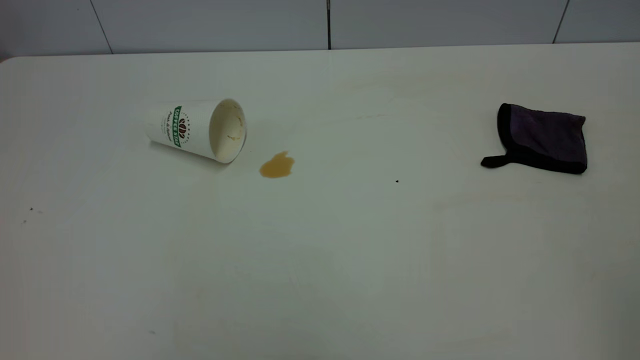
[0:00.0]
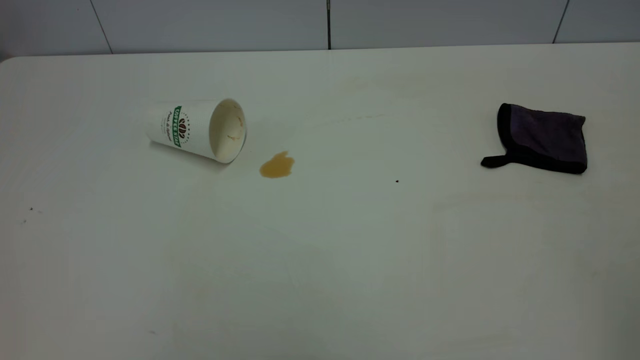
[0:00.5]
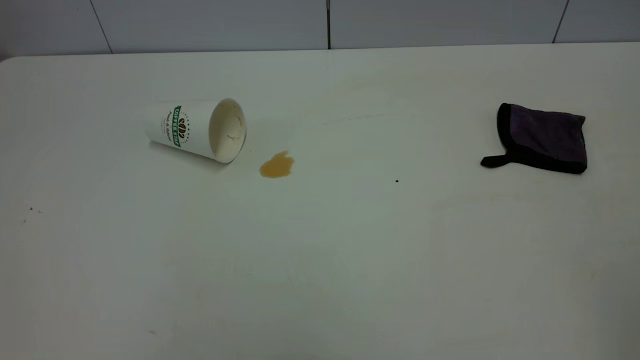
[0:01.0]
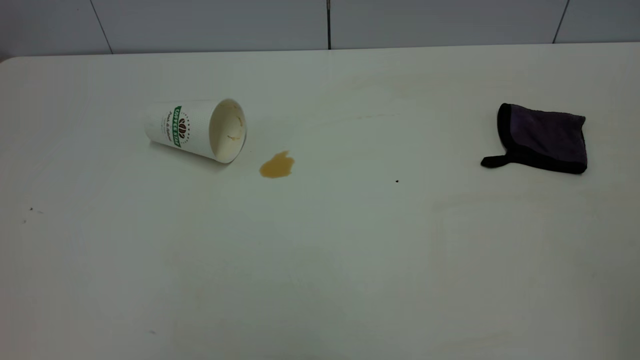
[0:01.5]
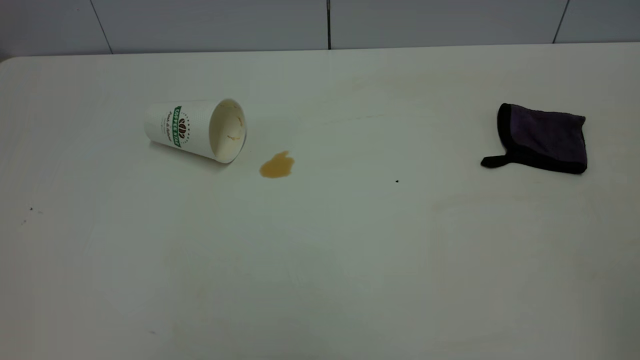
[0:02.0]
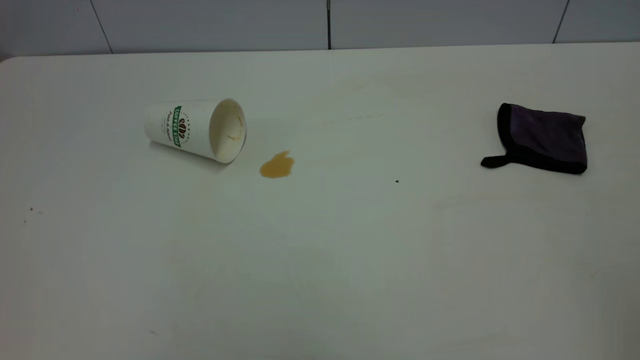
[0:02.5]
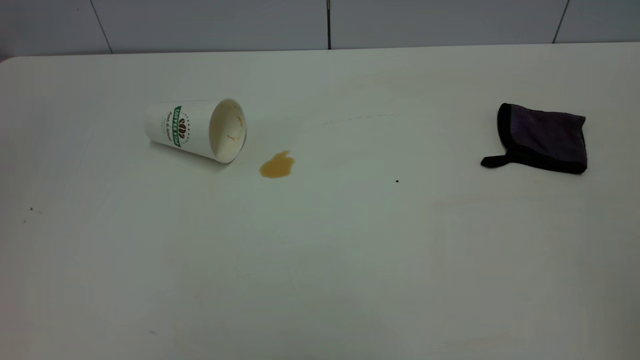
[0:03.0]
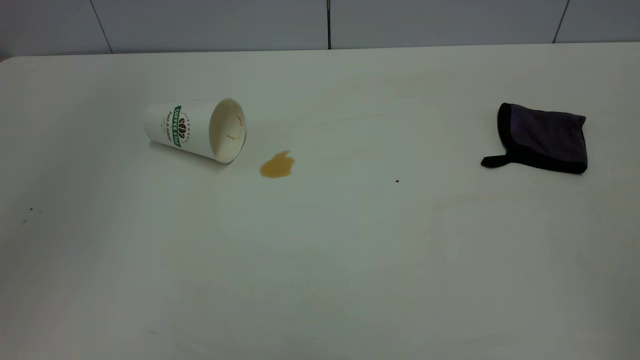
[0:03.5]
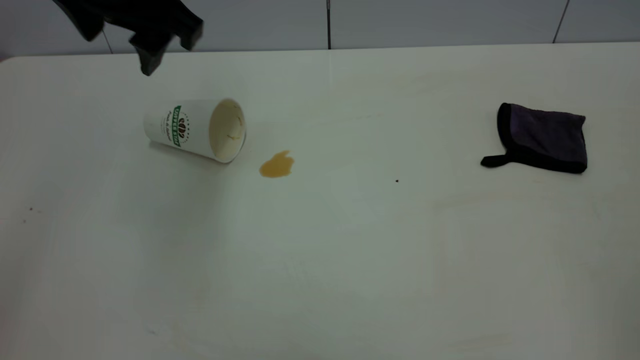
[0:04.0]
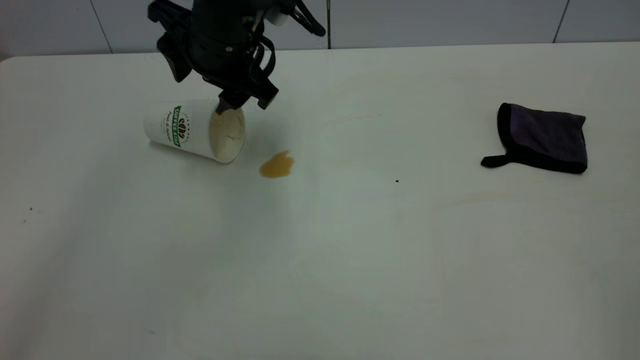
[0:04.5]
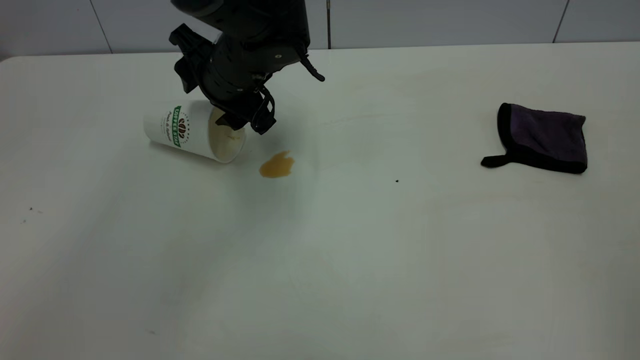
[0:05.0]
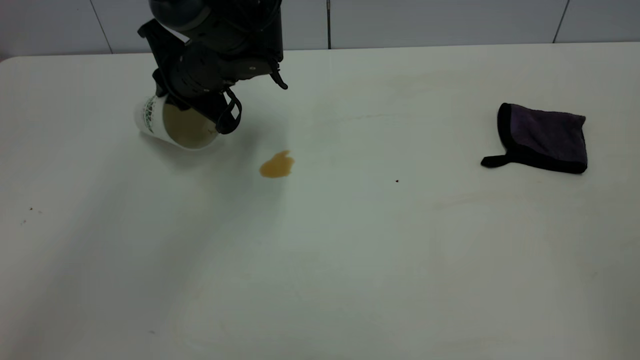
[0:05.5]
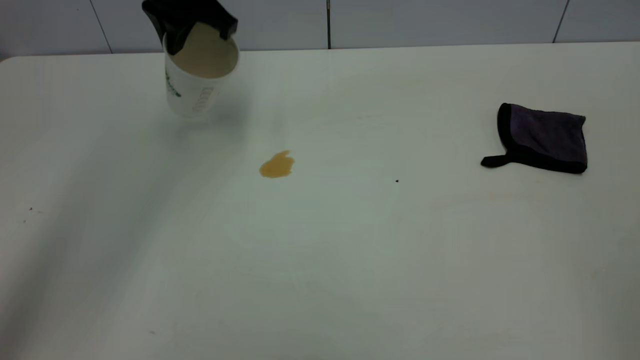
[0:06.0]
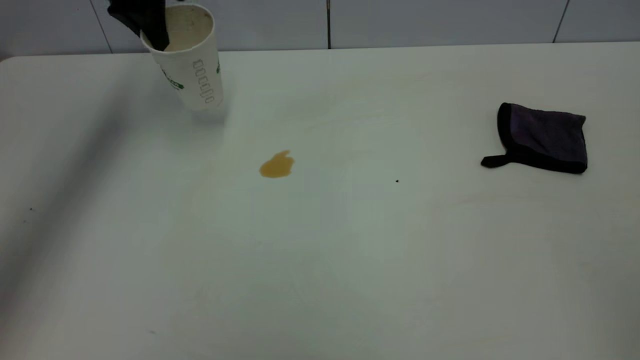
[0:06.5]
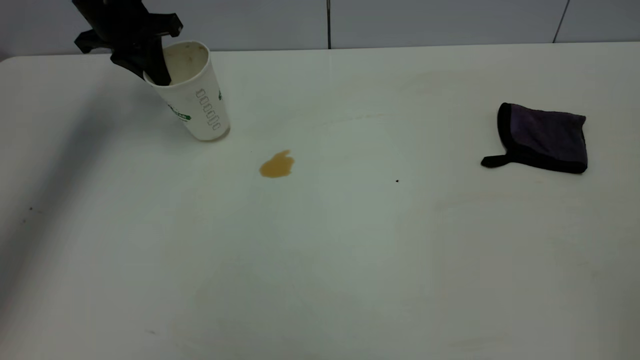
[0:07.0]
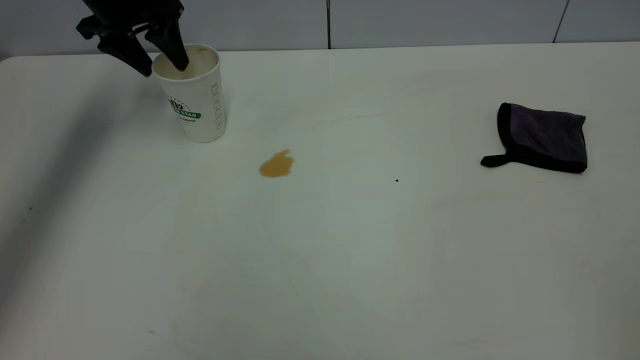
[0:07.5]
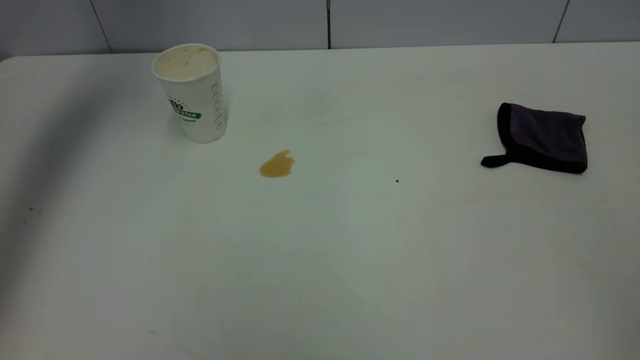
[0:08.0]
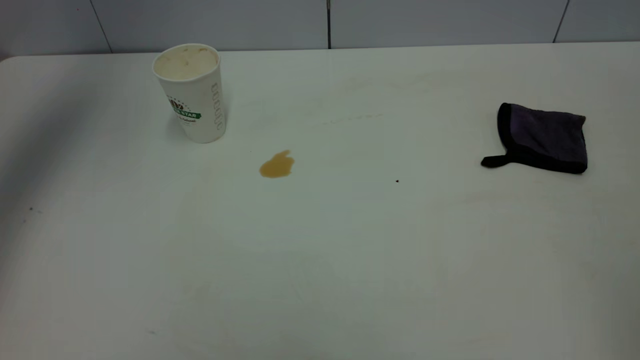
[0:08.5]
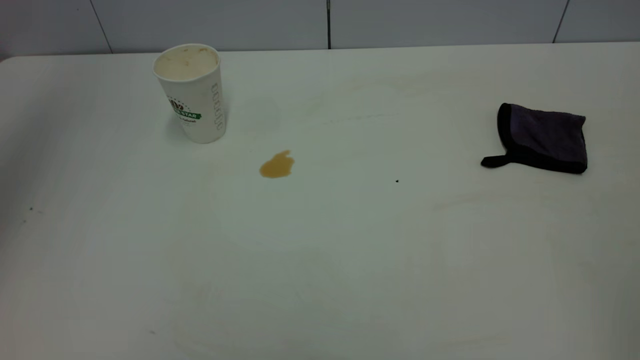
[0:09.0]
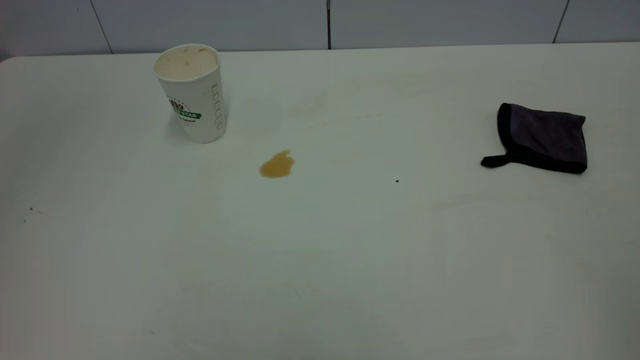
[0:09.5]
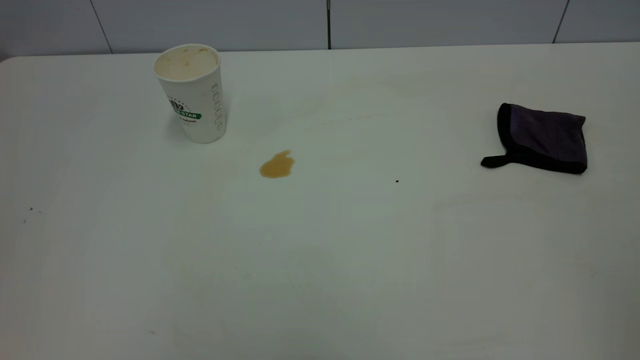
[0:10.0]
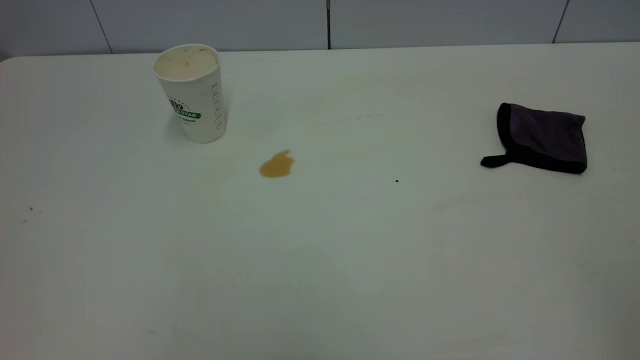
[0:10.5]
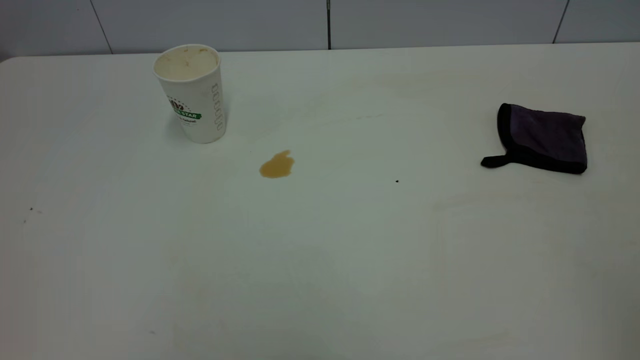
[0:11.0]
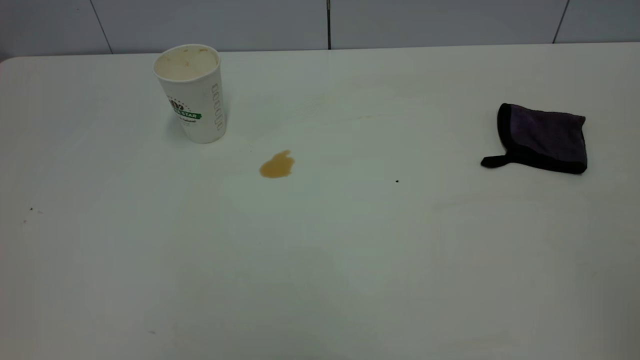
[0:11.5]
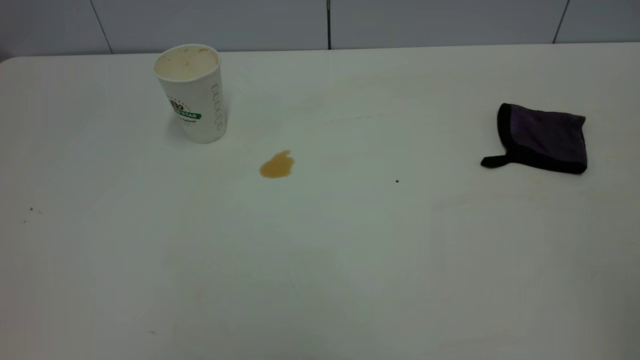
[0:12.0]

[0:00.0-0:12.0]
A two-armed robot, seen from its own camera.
Task of the whole recording: the left gripper pick up the fallen cup and place it upright, the right gripper grasp the purple rag and wipe the tea stain on the table, the right gripper put the purple rag back in its original position.
Step, 0:00.0 to 0:07.5: Stand the paper cup upright.
0:00.0 to 0:02.0: Both grippers stay about where they are.
0:02.0 to 0:04.0: The left gripper goes roughly 40 cm forward and to the right.
0:04.0 to 0:06.0: The left gripper travels forward by roughly 15 cm, reaches about 15 cm downward, then returns, and closes.
0:06.0 to 0:08.0: The left gripper travels upward and to the left by some 20 cm, and opens its fingers.
0:08.0 to 0:10.0: The left gripper shifts roughly 50 cm backward.

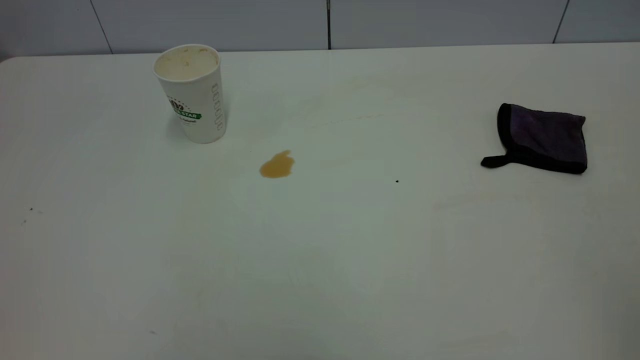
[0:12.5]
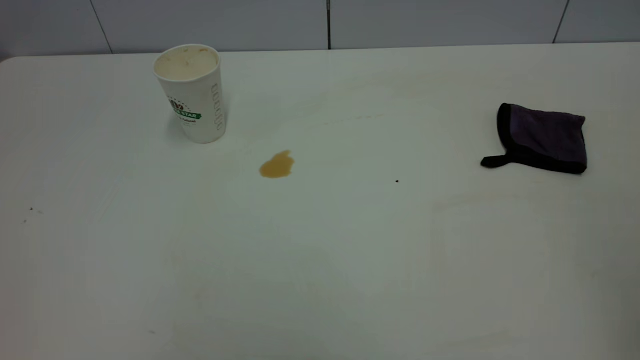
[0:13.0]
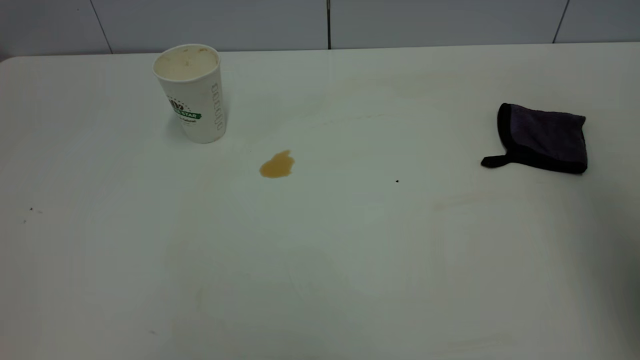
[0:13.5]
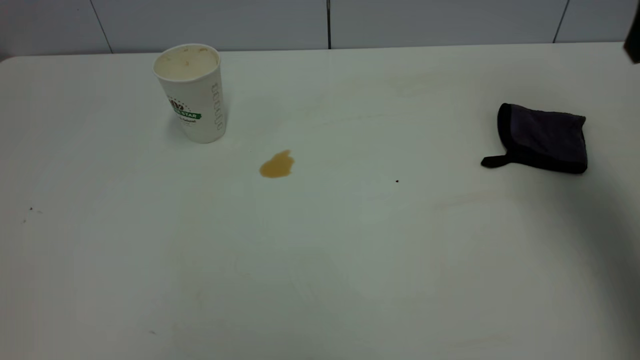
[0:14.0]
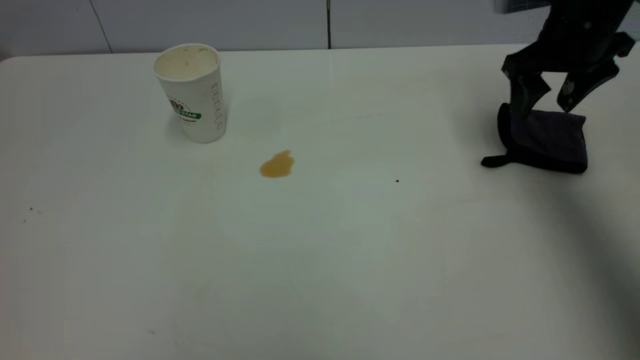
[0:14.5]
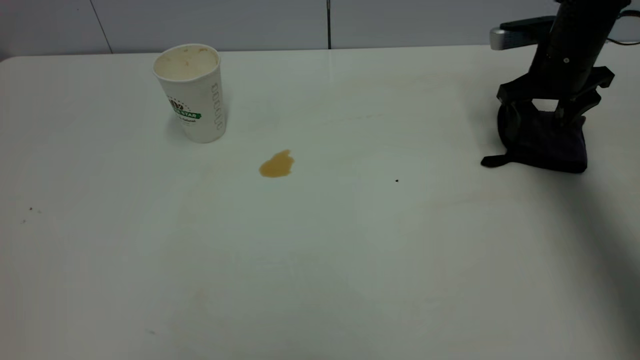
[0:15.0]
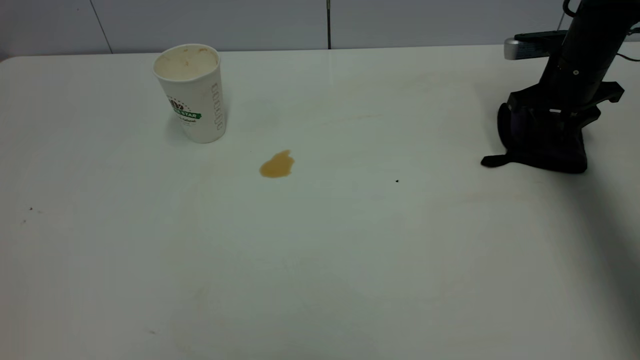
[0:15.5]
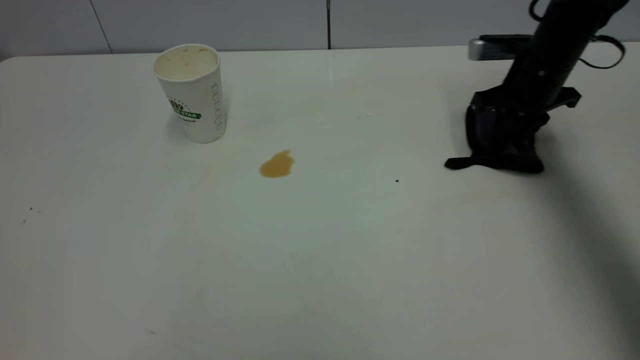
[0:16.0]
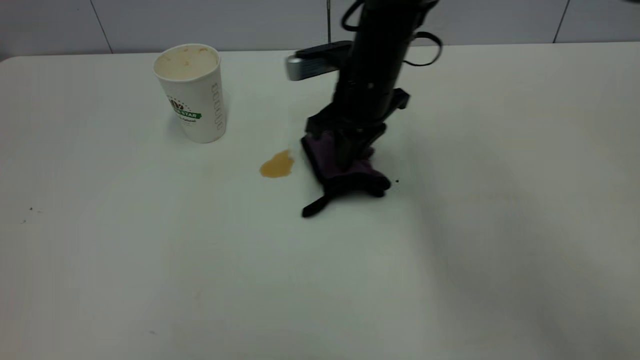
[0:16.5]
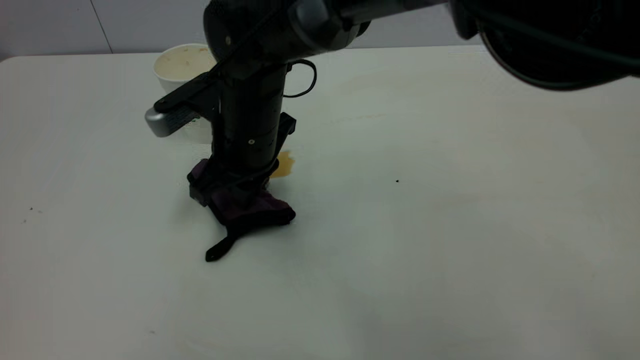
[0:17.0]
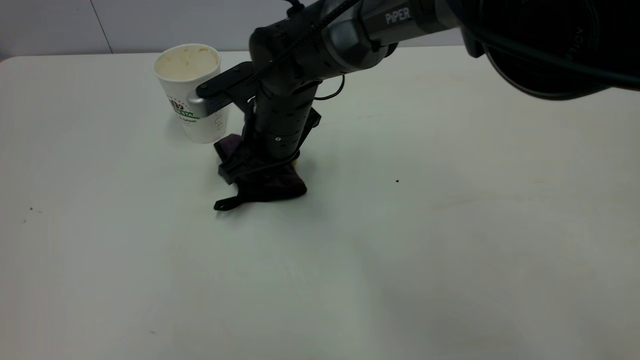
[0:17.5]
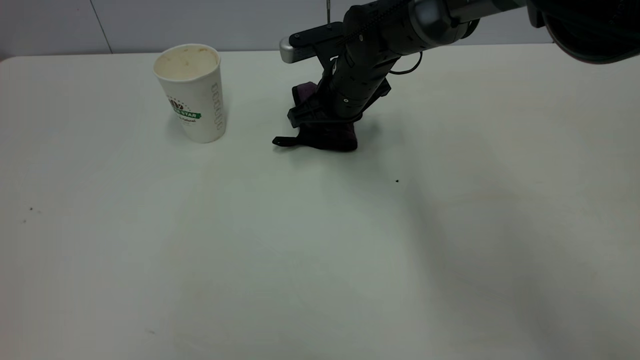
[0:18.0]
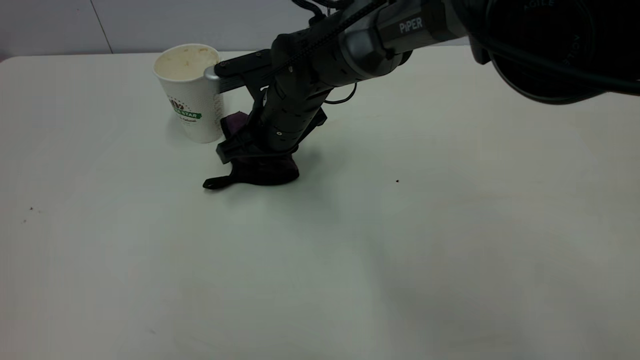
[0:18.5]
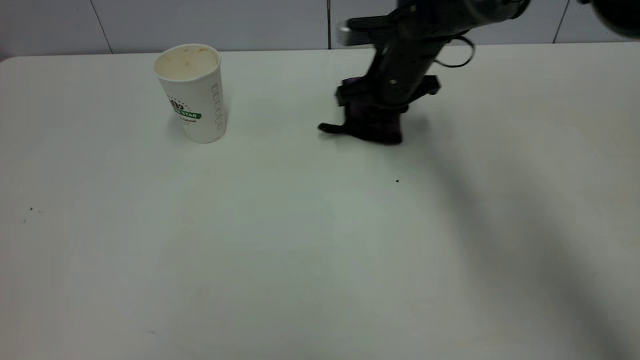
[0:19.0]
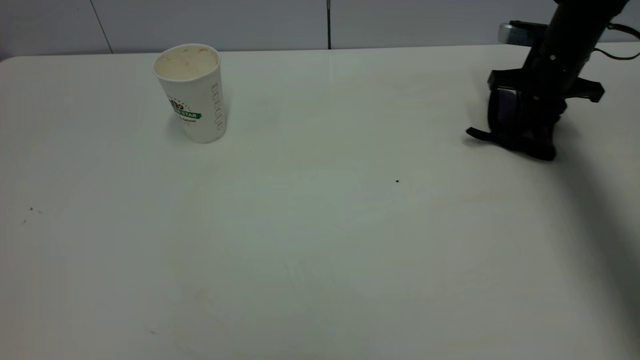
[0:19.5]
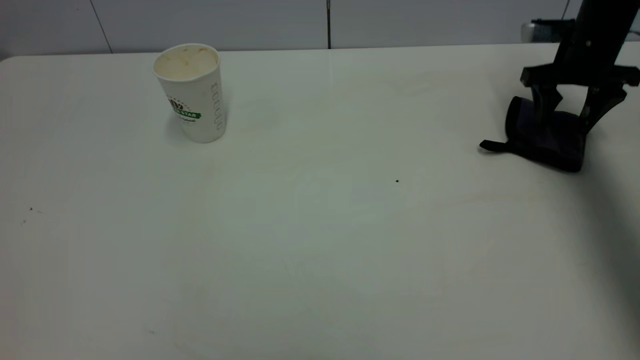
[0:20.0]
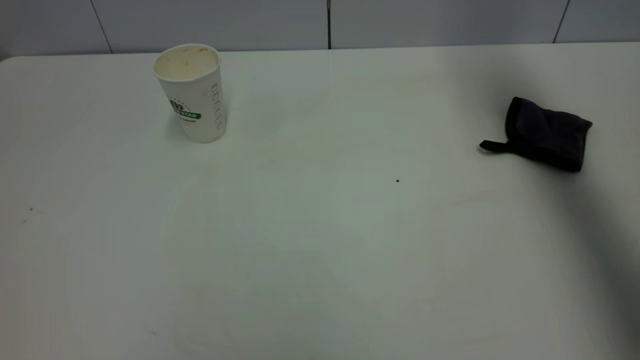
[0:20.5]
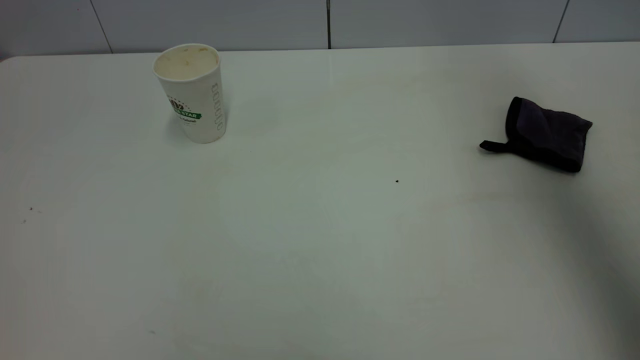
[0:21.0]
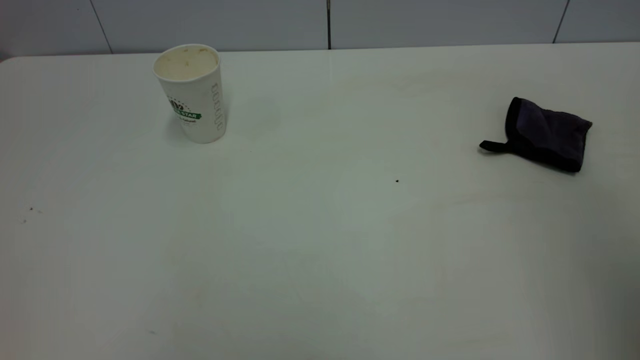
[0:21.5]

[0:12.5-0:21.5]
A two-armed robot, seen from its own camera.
Task of the whole recording: the left gripper pick up the fallen cup and place it upright, the right gripper grasp the purple rag and wipe the tea stain on the table, the right gripper put the purple rag back in its original position.
Step, 0:12.5 to 0:20.0: Wipe the stains off the table with a rag.
0:12.5 to 0:14.5: The right gripper heads forward and downward, covering some 50 cm, and opens up.
0:14.5 to 0:17.0: The right gripper travels to the left by some 35 cm, and closes its fingers.
0:17.0 to 0:19.5: The right gripper goes left and right, roughly 40 cm each way, reversing 2 times.
0:19.5 to 0:21.5: The right gripper travels backward and upward by approximately 50 cm, and opens up.
